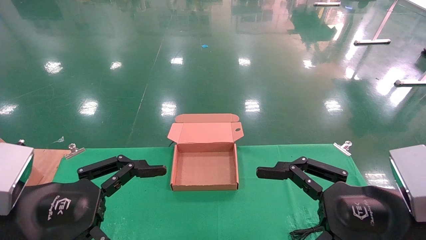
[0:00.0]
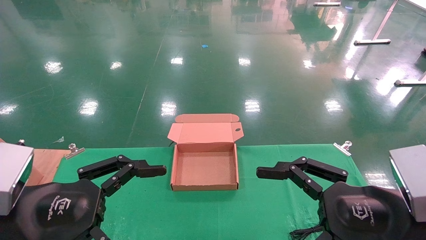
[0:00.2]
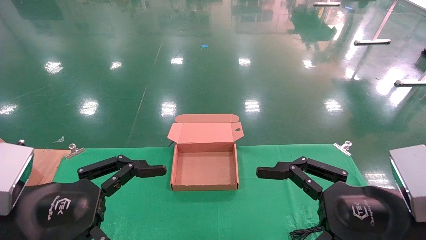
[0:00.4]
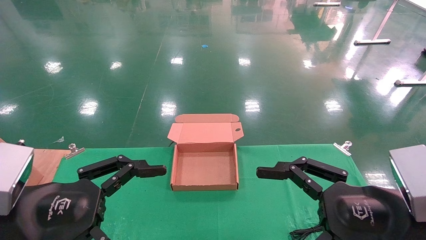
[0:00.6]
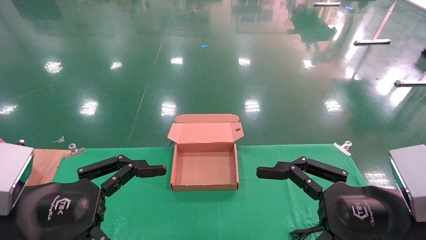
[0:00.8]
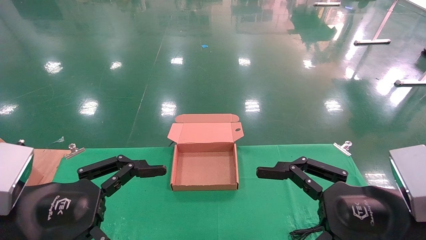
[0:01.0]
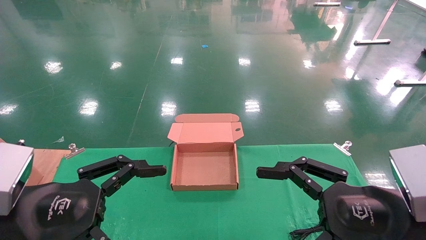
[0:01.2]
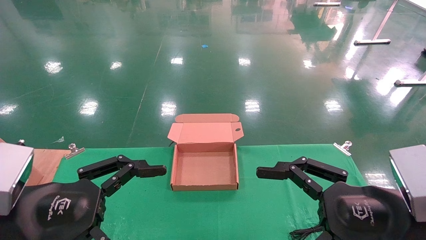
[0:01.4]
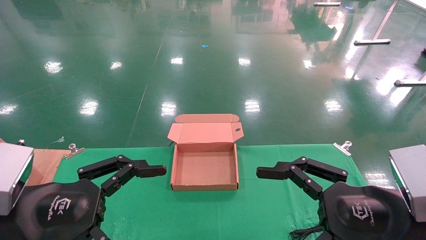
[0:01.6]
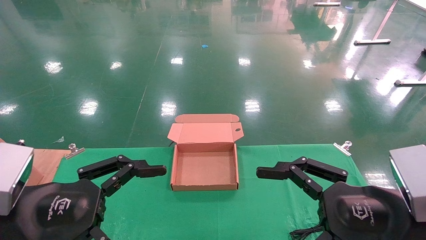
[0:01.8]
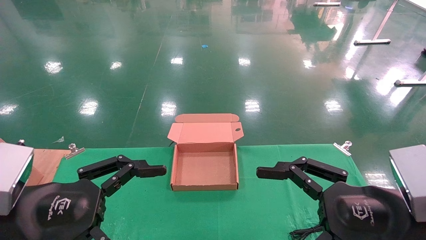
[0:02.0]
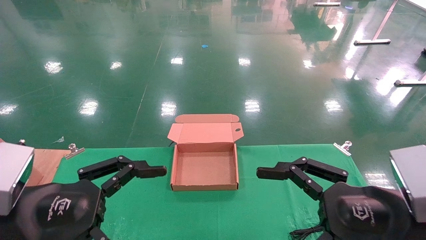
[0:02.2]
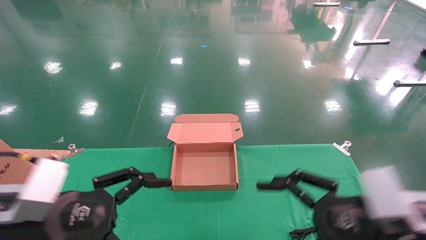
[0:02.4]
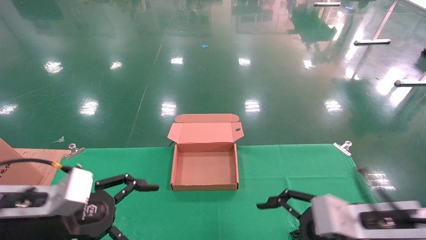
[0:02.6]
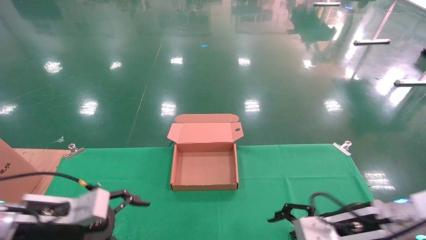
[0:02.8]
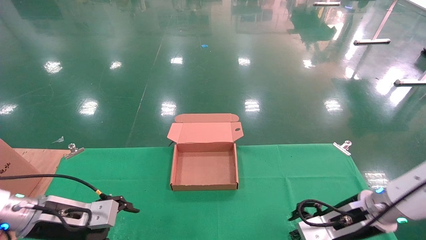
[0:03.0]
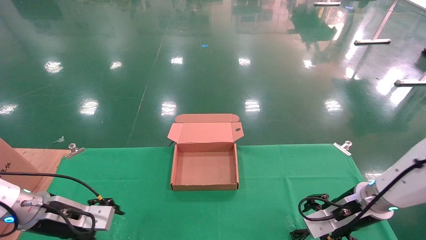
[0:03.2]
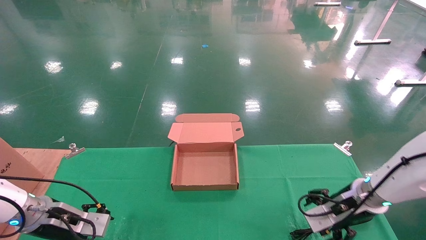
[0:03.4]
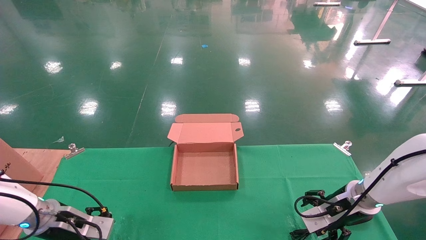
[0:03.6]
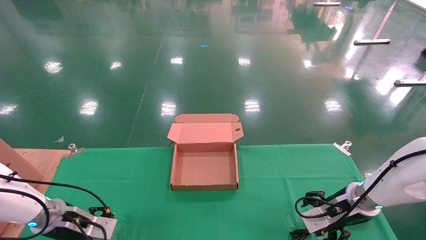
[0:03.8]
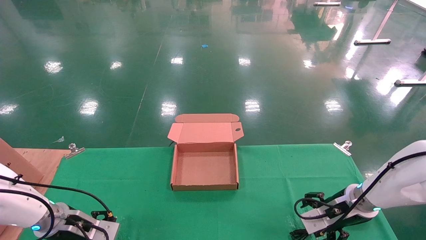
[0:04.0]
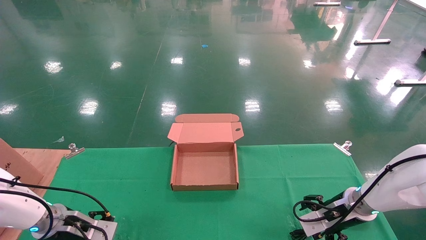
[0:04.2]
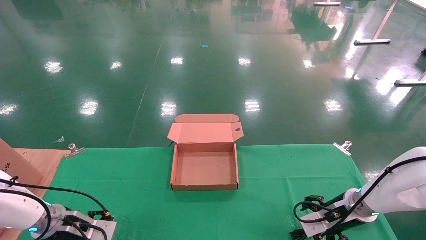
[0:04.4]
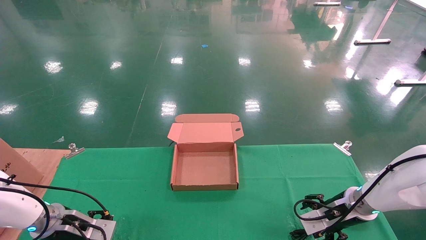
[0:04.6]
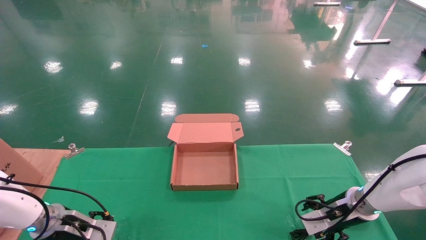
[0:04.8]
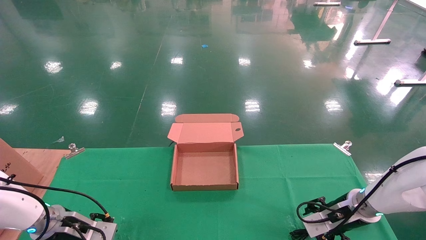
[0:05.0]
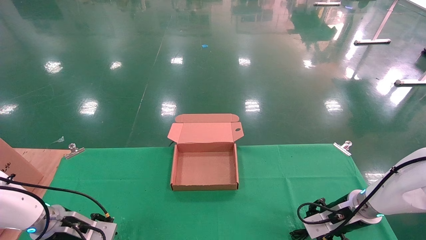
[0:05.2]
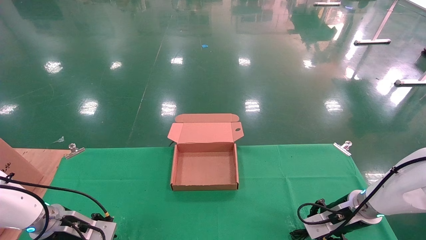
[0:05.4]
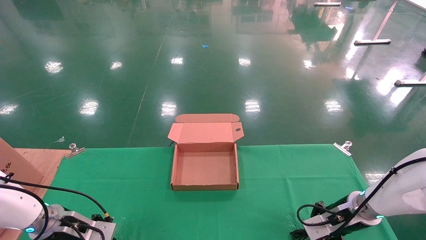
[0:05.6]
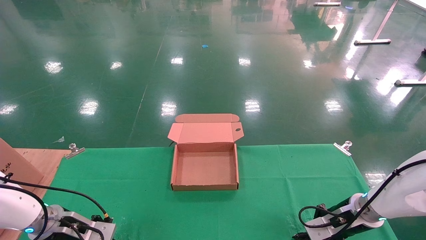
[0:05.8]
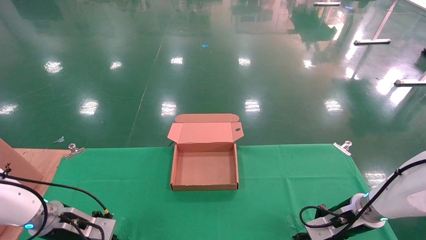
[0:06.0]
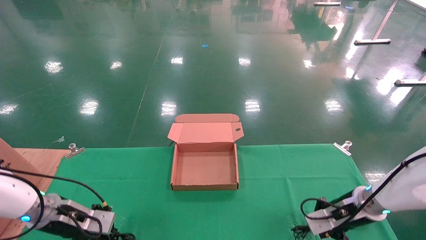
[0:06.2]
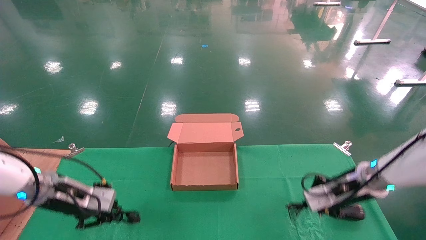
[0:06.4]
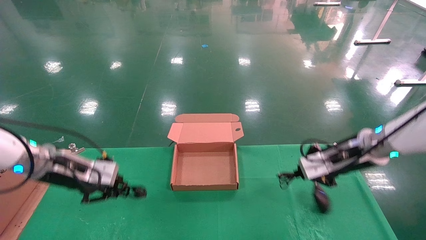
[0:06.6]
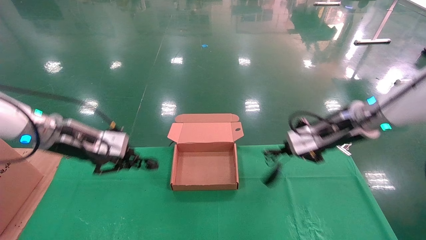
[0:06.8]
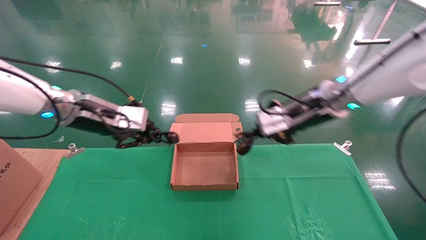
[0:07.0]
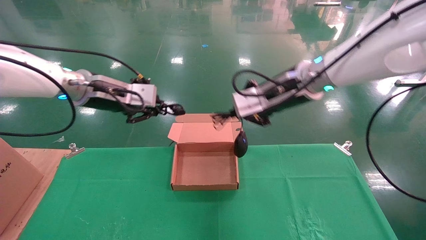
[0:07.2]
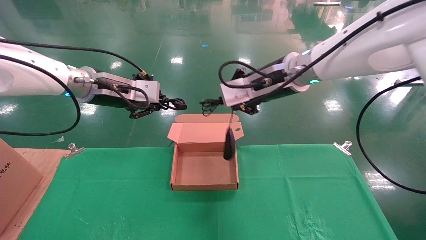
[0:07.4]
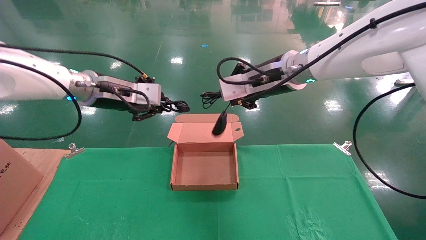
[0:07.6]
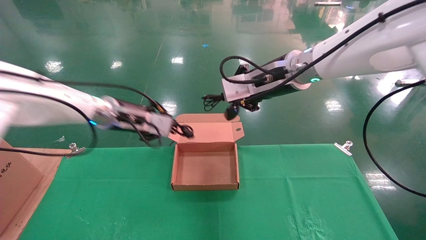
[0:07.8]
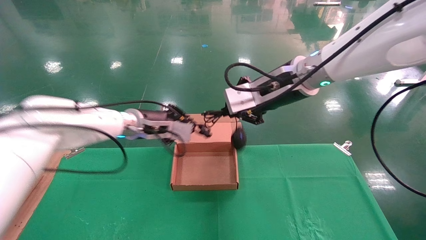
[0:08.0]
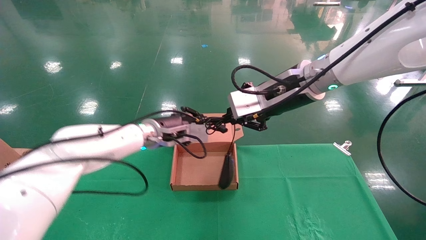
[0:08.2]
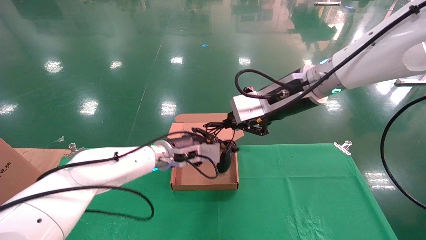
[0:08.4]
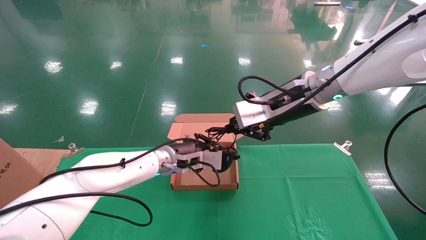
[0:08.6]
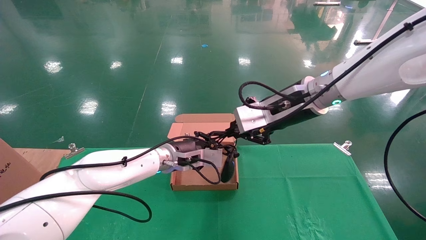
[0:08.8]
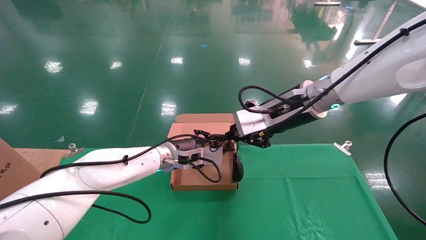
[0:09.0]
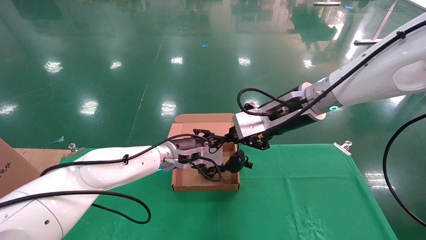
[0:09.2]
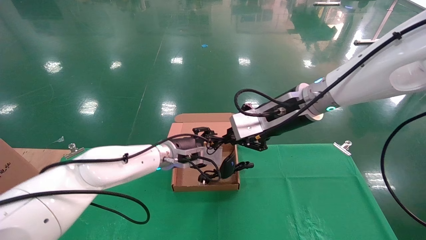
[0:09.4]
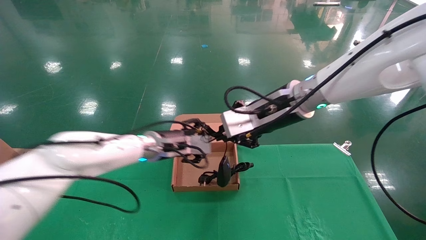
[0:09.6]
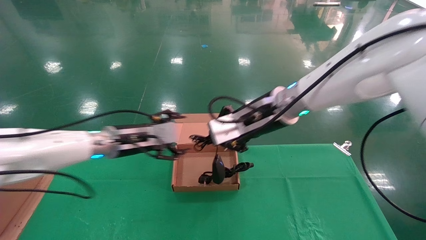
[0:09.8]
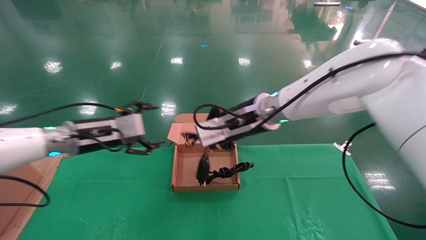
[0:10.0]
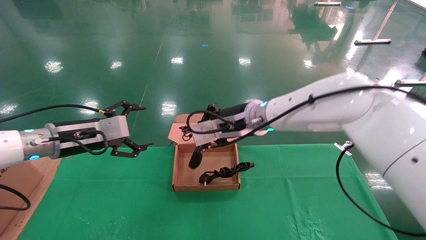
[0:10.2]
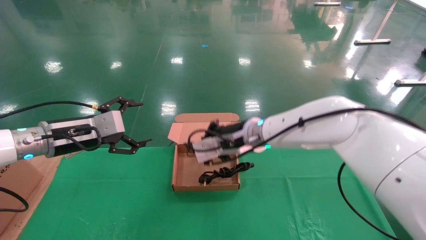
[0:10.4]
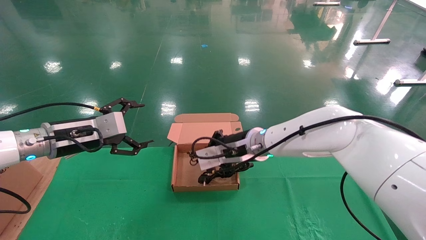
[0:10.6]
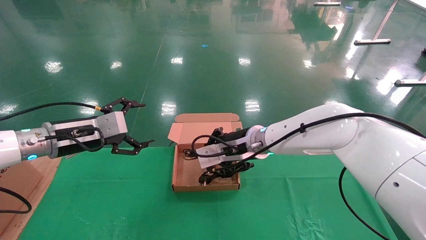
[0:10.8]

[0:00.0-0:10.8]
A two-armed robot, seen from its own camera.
Step, 0:02.0 to 0:06.2: Grab and lift both the mouse and power cord from the accessory packaging area at the same time.
0:00.0 to 0:01.6: The two grippers keep their place.
0:01.6 to 0:03.0: The grippers both shift forward and downward by about 20 cm.
0:03.0 to 0:04.6: The left gripper goes some 10 cm downward and forward, while the right gripper goes approximately 5 cm forward.
0:04.6 to 0:06.2: The right gripper closes its fingers. The left gripper shifts about 5 cm upward, and closes its fingers.
0:06.2 to 0:07.8: The right gripper moves upward and to the left, roughly 30 cm. The left gripper heads upward and to the right, covering approximately 25 cm.
0:07.8 to 0:09.2: The right gripper moves about 5 cm. The left gripper heads downward and to the right, covering about 15 cm.
0:09.2 to 0:10.8: The right gripper is displaced downward, to the left and forward by approximately 15 cm, while the left gripper travels to the left and backward by roughly 25 cm, and opens its fingers.

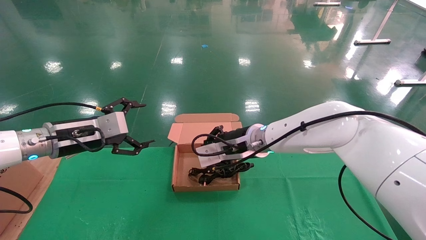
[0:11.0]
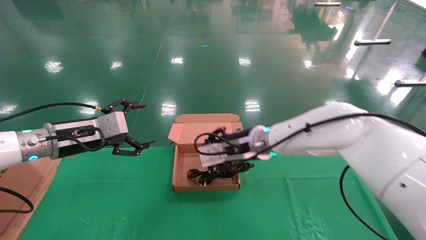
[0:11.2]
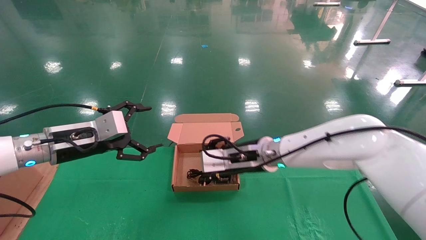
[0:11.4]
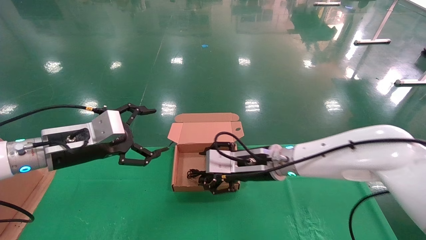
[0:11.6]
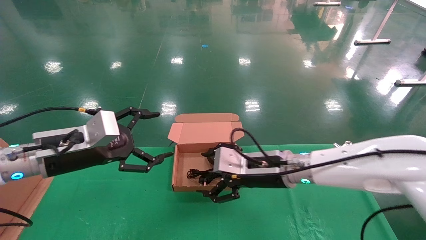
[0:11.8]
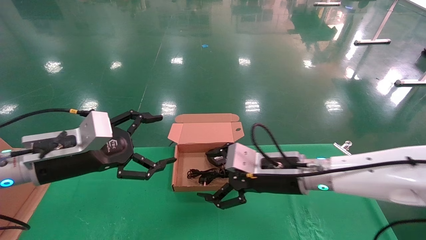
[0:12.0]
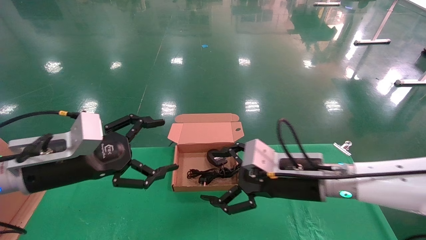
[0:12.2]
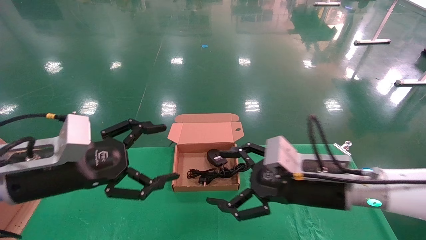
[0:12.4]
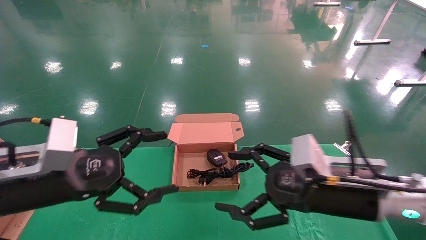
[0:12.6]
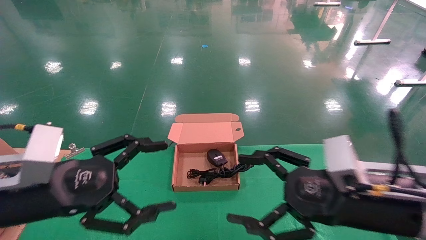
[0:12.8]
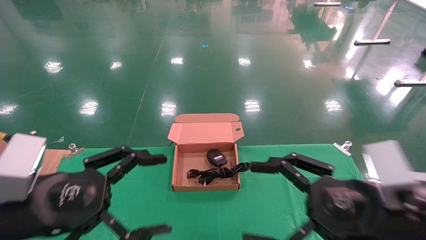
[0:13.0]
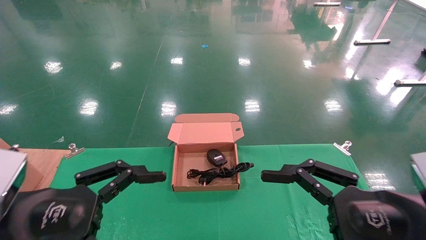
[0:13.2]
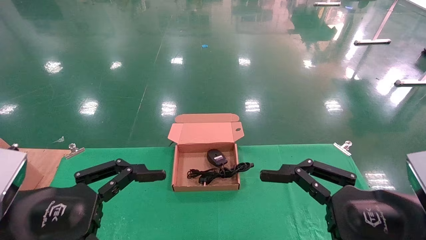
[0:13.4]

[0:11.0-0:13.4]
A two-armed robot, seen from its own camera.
0:11.0 to 0:12.2: The left gripper shifts roughly 10 cm backward. The right gripper travels backward and to the right by approximately 15 cm, and opens.
0:12.2 to 0:13.4: The left gripper is displaced backward by some 10 cm. Meanwhile the right gripper shifts roughly 20 cm backward and to the right.
